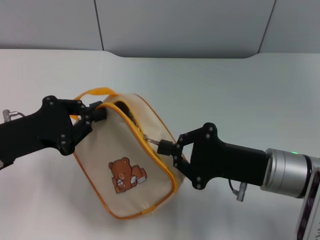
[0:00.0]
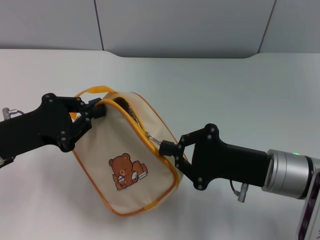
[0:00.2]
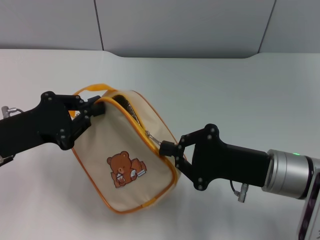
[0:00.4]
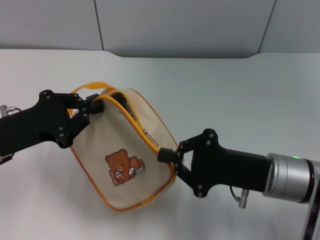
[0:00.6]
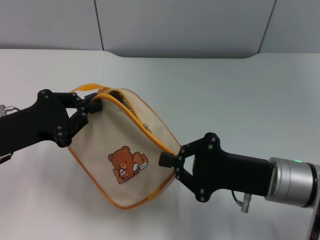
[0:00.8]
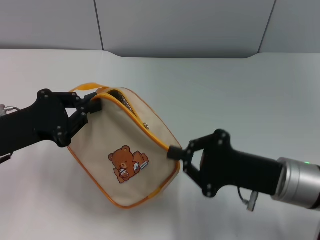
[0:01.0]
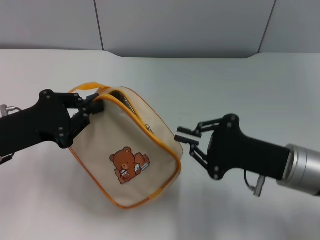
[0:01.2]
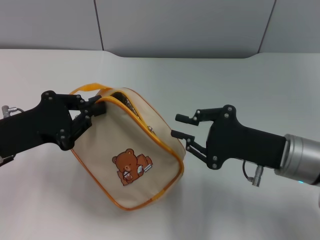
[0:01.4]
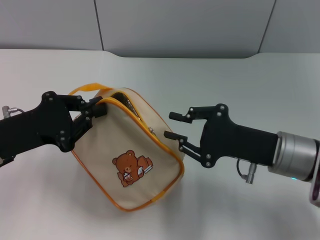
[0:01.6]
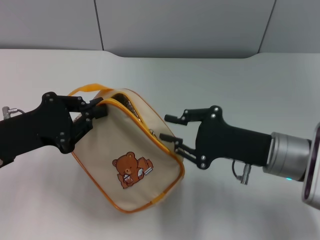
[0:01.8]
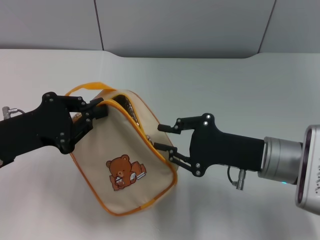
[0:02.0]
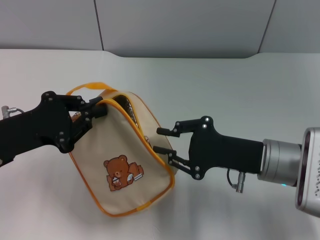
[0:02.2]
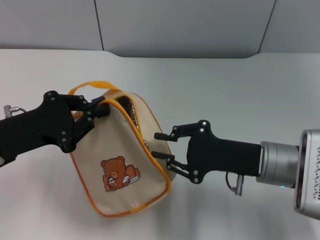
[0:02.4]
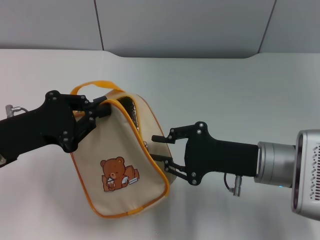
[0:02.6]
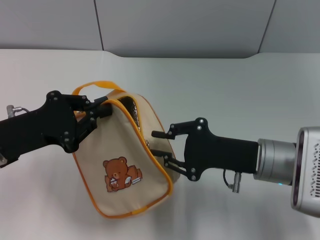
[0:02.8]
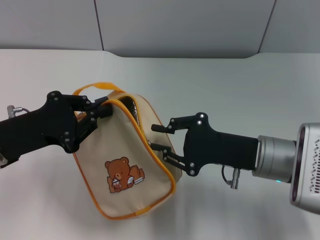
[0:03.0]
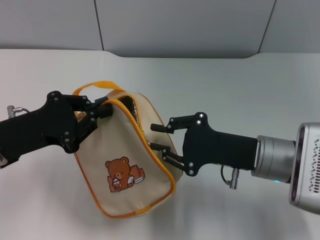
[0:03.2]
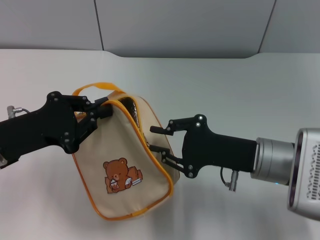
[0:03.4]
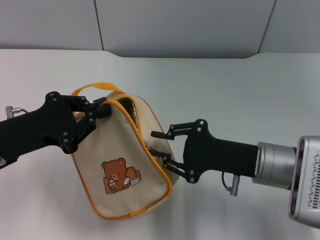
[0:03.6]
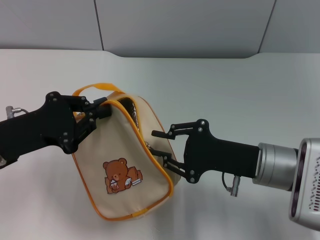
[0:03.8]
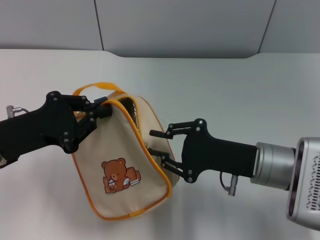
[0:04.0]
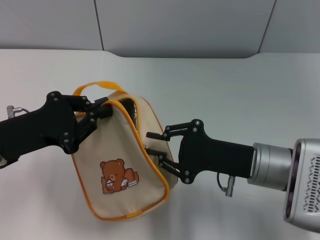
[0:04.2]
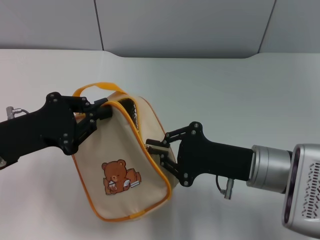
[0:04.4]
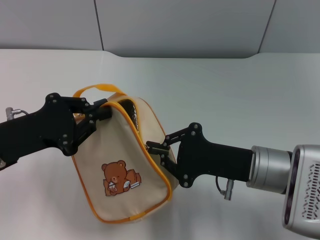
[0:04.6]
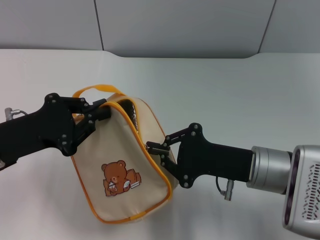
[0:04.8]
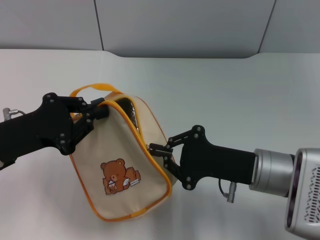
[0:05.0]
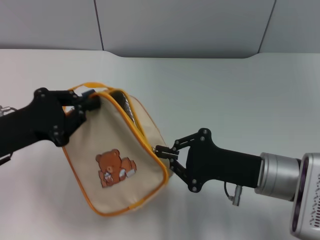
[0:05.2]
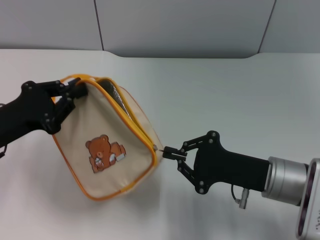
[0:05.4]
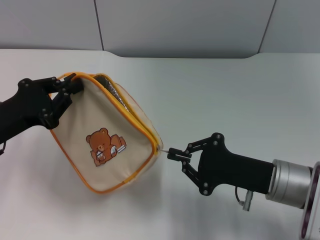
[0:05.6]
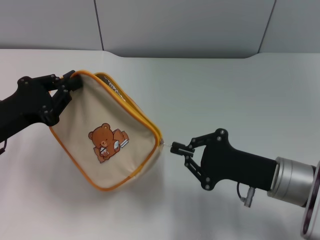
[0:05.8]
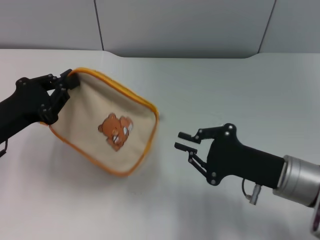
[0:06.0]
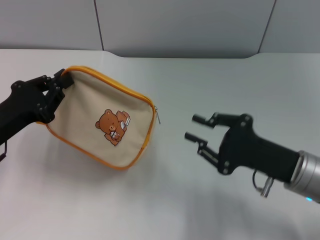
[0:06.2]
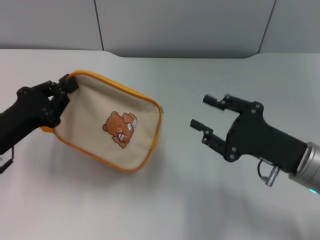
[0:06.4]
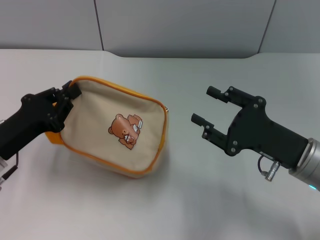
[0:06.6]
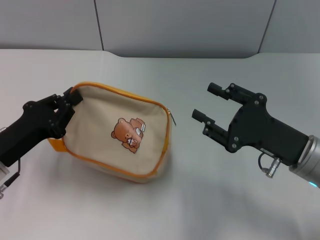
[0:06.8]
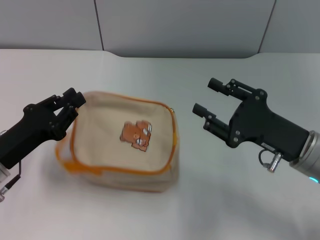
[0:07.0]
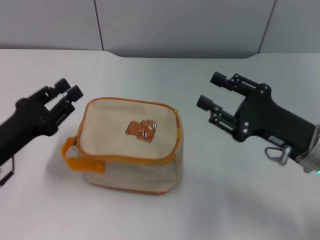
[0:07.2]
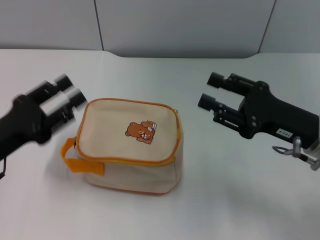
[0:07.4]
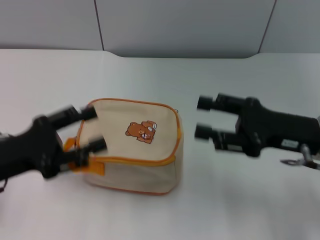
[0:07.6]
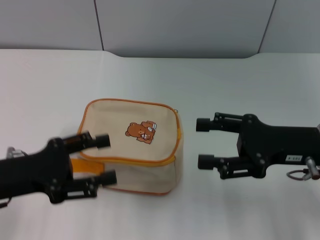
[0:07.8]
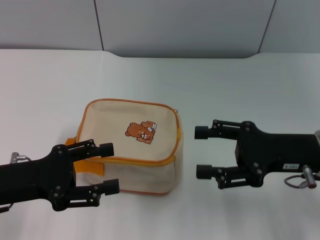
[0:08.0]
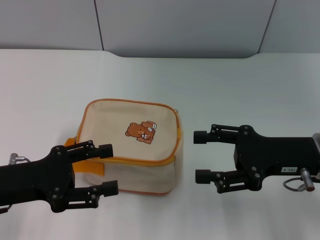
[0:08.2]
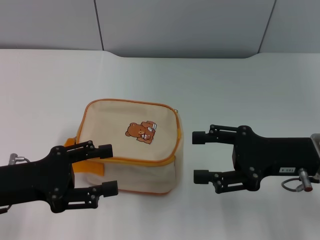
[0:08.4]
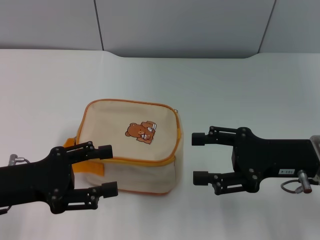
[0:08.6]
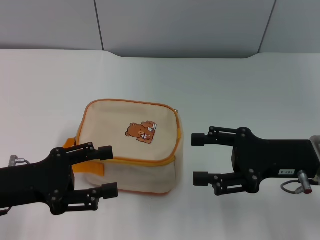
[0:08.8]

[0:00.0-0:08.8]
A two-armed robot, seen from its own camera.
Step, 0:00.0 to 0:05.8: Unzip the zipper of bag with right gripper.
Step, 0:06.2 to 0:07.0: Place the bag on the table with left gripper.
0:00.0 to 0:04.4: The grippers make only small movements.
0:05.8 to 0:07.4: The left gripper opens its fingers, while the right gripper ends up roughly 5 cm from where it was, and opens.
0:07.4 to 0:08.8: The left gripper opens up.
